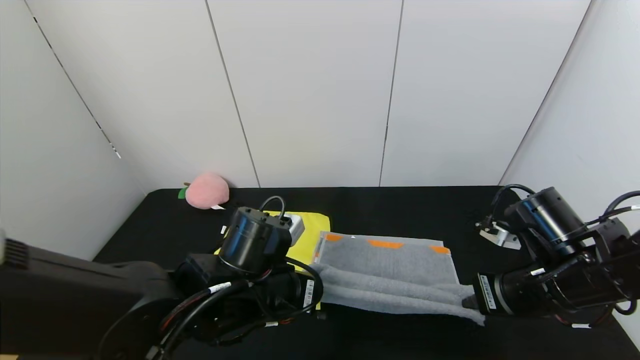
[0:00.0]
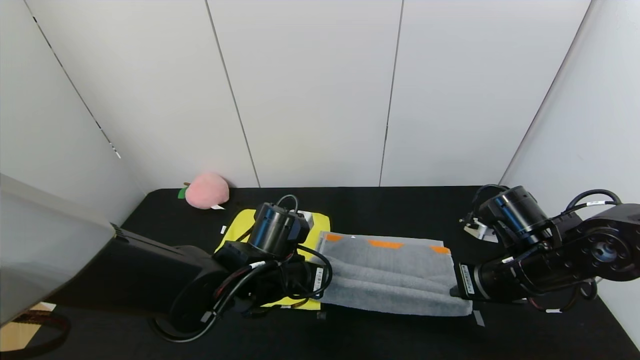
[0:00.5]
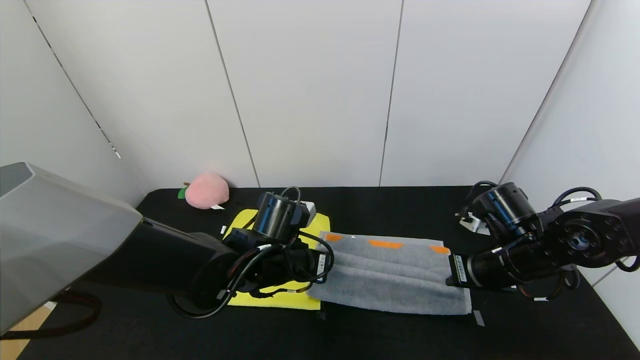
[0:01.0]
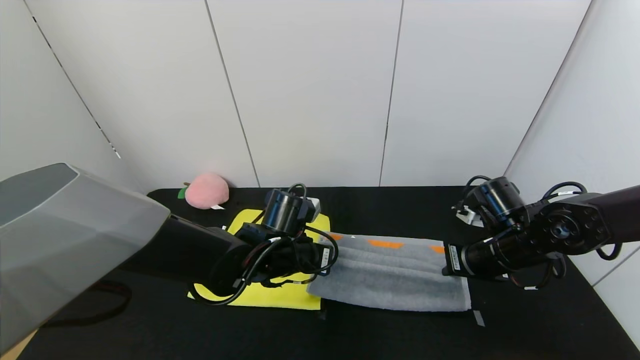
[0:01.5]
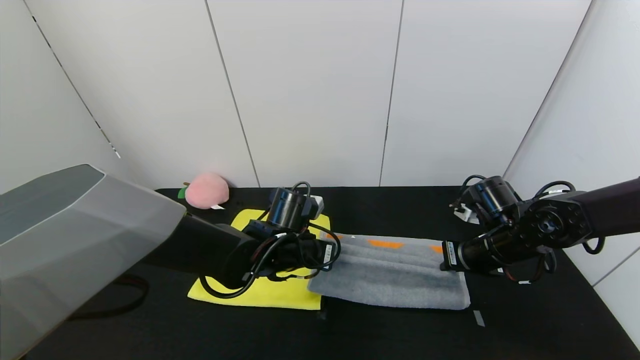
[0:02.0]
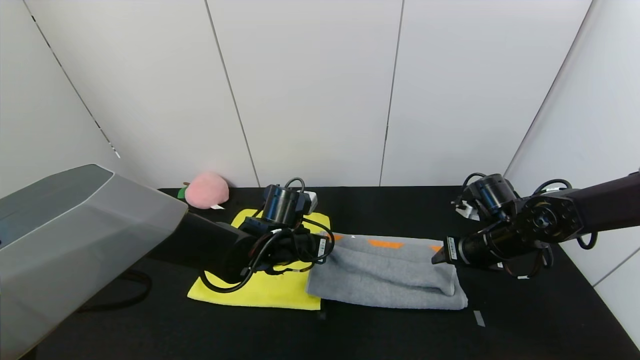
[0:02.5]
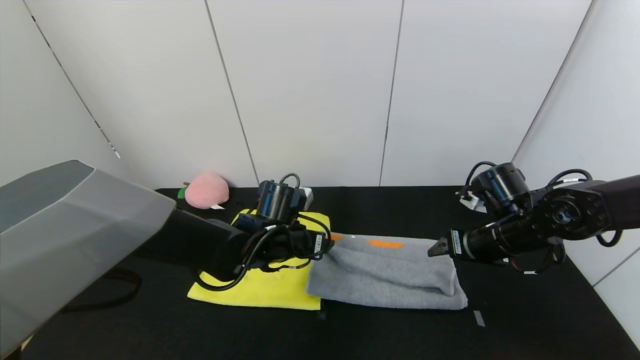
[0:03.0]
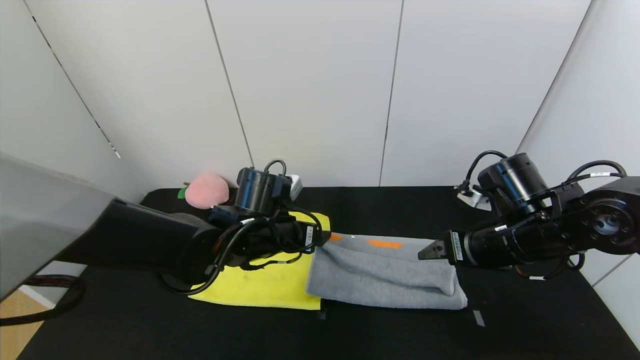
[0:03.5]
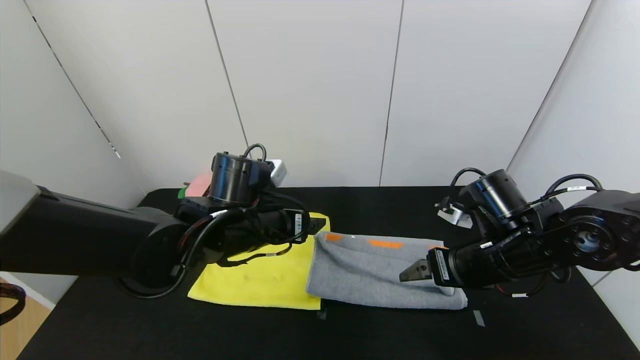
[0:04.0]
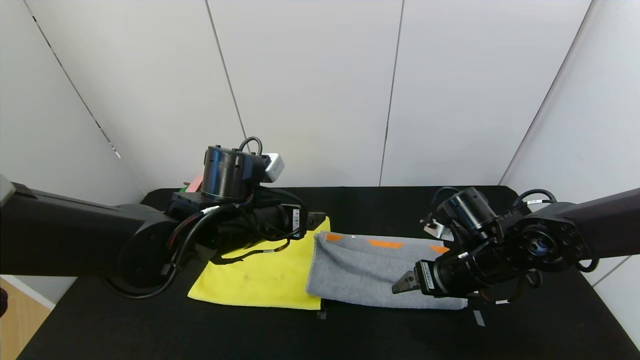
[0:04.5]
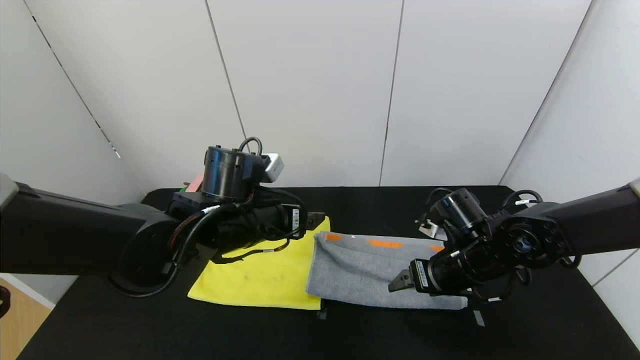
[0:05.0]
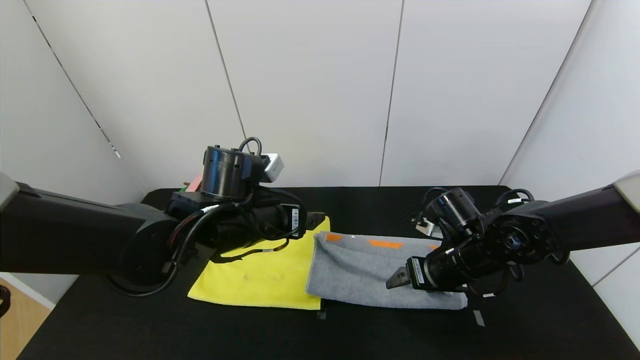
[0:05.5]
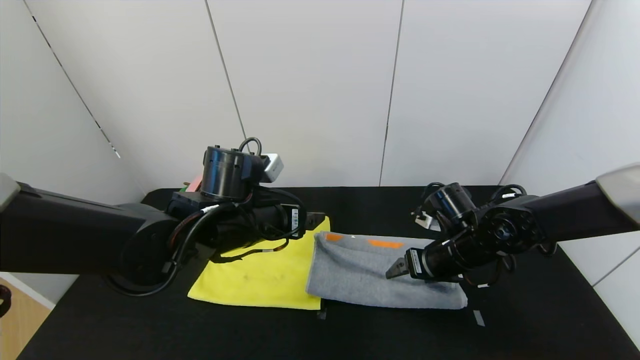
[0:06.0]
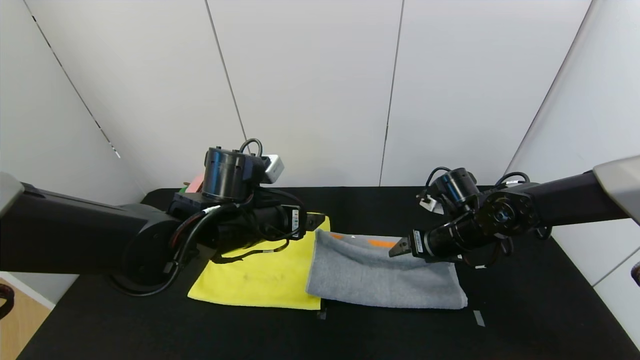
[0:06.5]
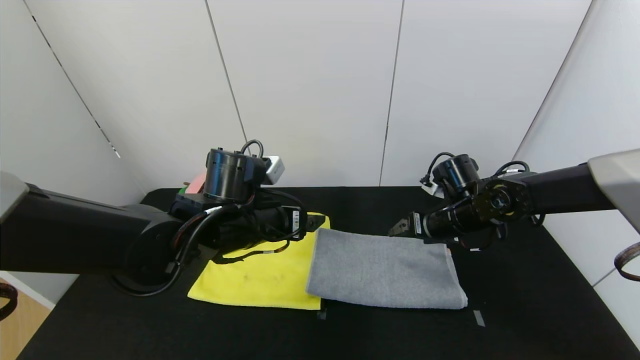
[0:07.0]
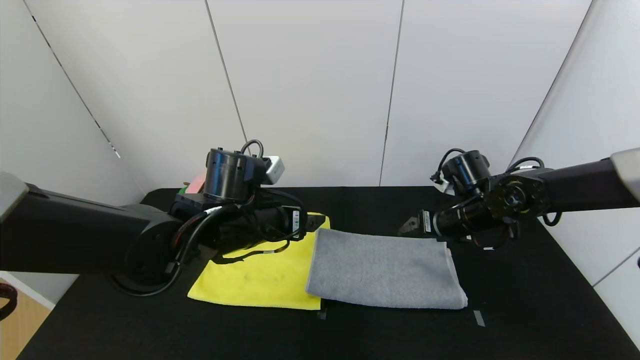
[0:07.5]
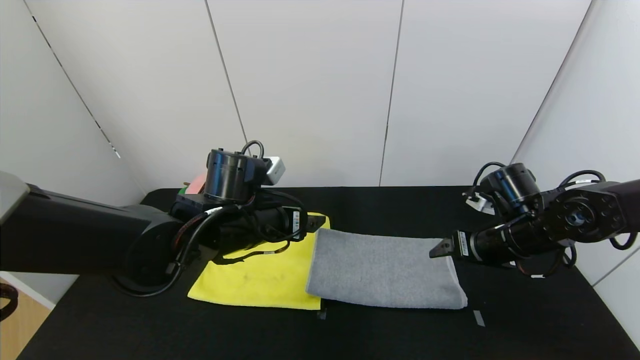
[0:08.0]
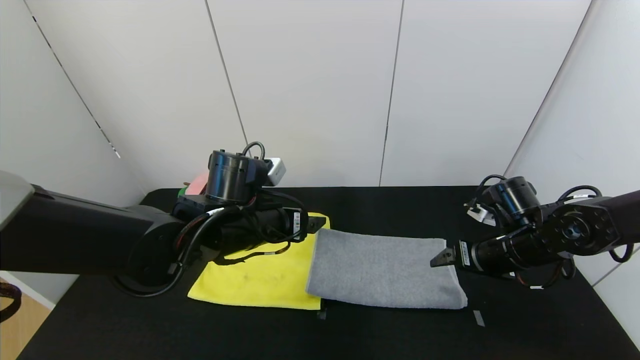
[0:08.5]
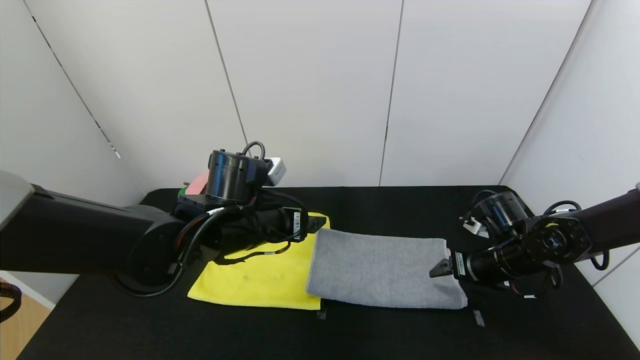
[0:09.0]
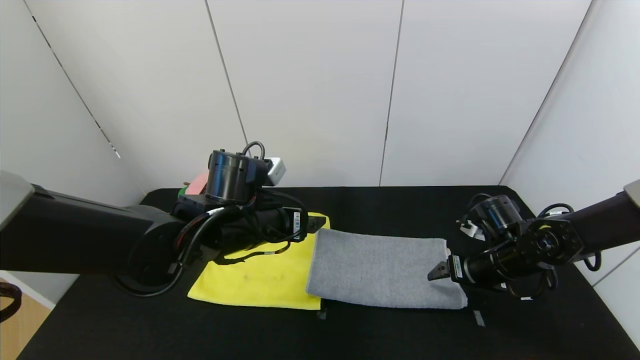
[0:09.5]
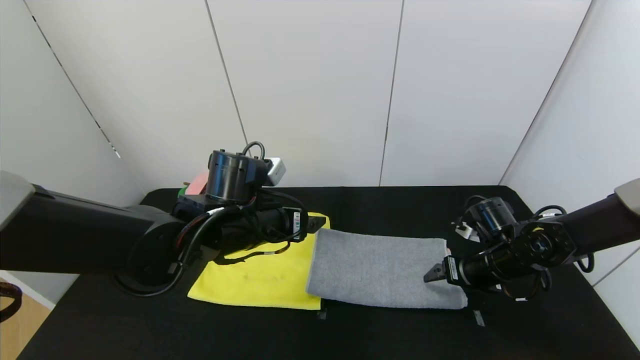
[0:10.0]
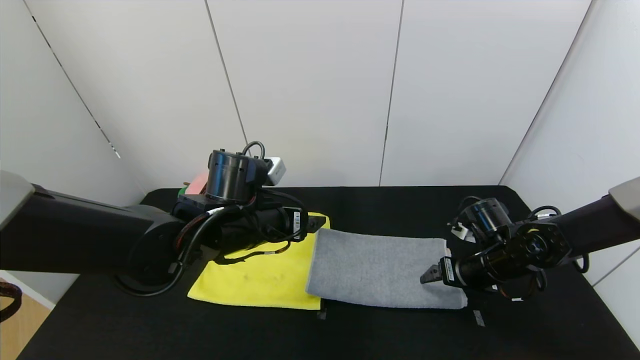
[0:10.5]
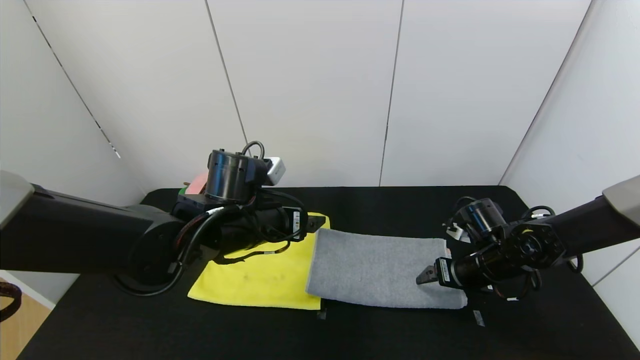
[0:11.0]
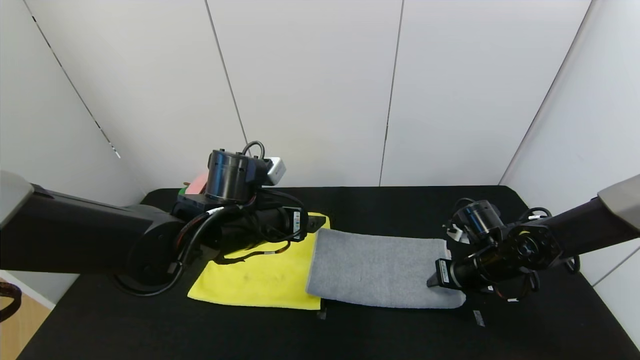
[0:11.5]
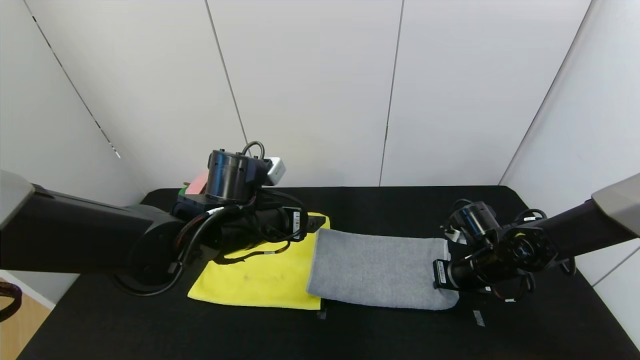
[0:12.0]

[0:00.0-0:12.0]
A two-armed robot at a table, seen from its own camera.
Task of the whole recording: Use the gripper to fold the yellow towel and grey towel in half twice,then put the yellow towel on the grey towel.
Step, 0:00.0 to 0:07.0: Fold the gray towel upwards with the left gripper.
Step, 0:00.0 to 0:07.0: Fold the gray towel upwards with the right gripper.
0:00.0 to 0:02.0: Both grippers travel together forward, about 10 cm.
0:02.0 to 0:04.0: The left gripper goes approximately 5 cm upward, and opens; the right gripper heads backward, covering some 5 cm, and opens.
0:04.0 to 0:06.0: The right gripper is displaced forward by about 5 cm.
0:06.0 to 0:08.0: The right gripper goes some 5 cm to the right.
0:08.0 to 0:10.0: The right gripper heads downward, covering roughly 5 cm.
0:10.0 to 0:12.0: The right gripper closes.

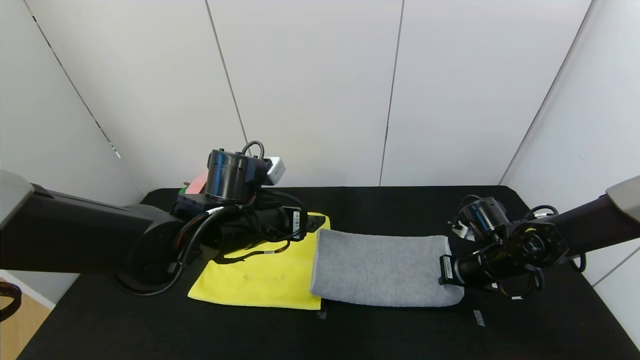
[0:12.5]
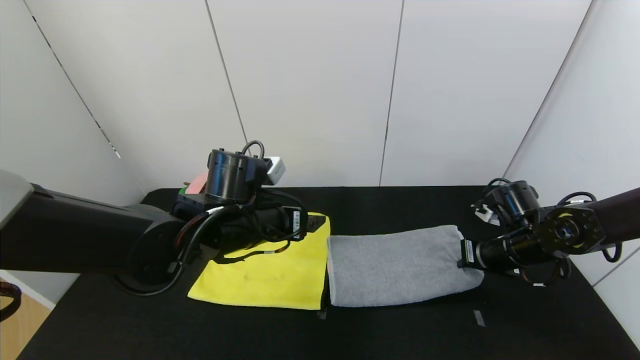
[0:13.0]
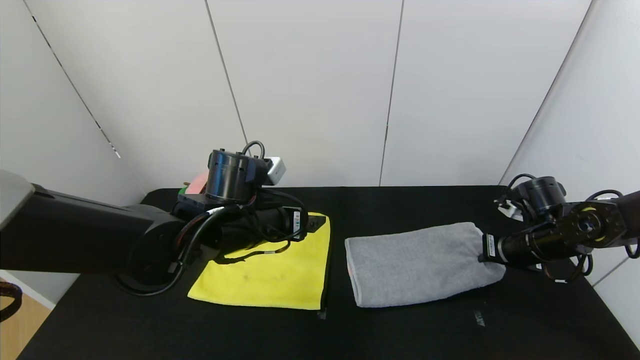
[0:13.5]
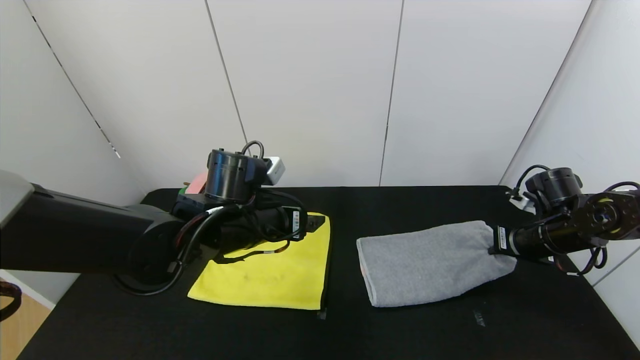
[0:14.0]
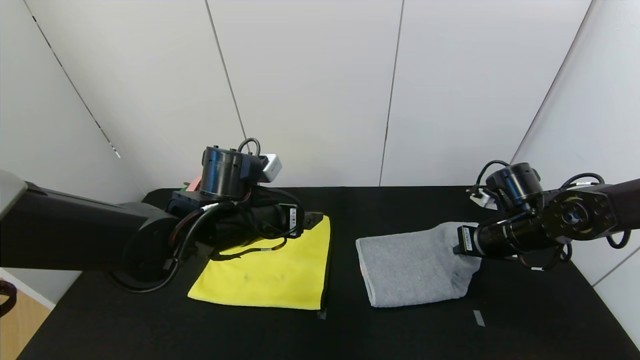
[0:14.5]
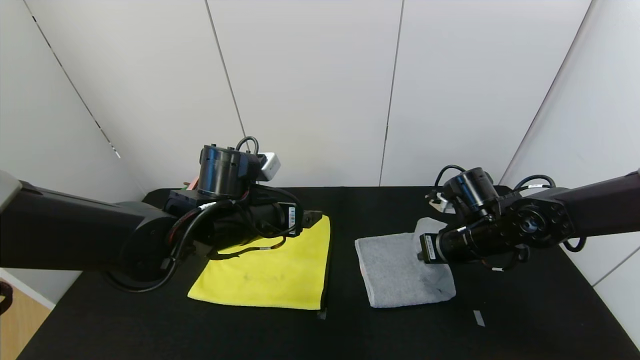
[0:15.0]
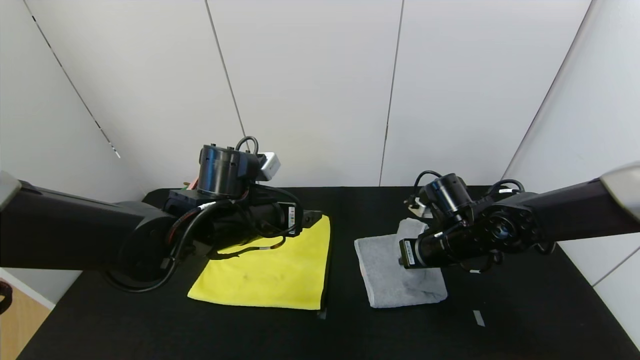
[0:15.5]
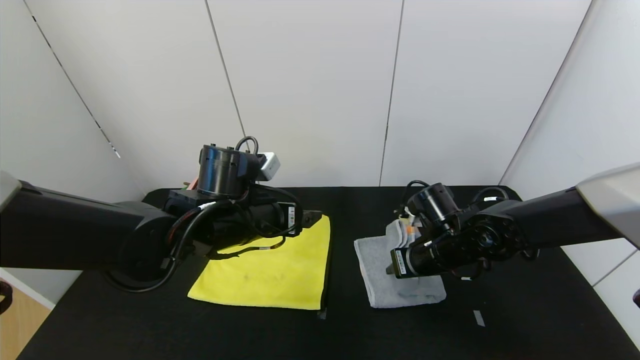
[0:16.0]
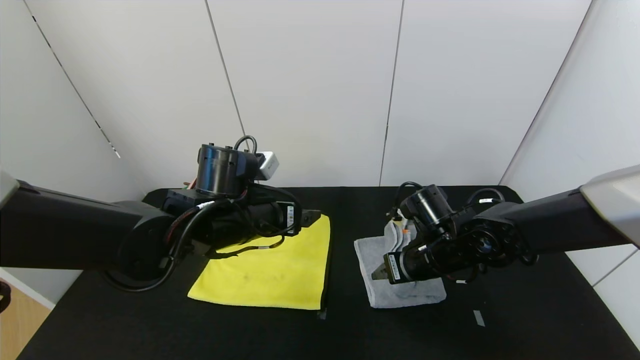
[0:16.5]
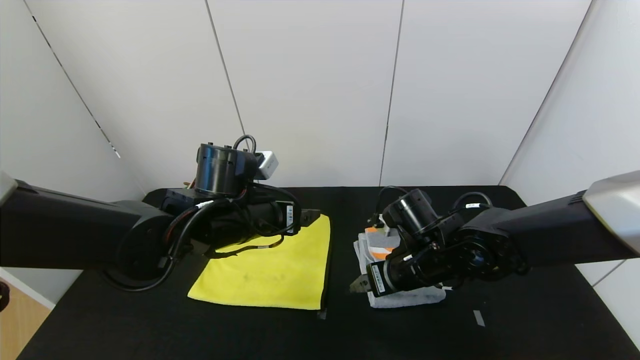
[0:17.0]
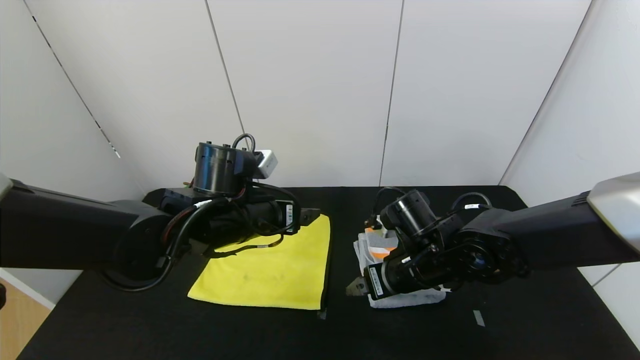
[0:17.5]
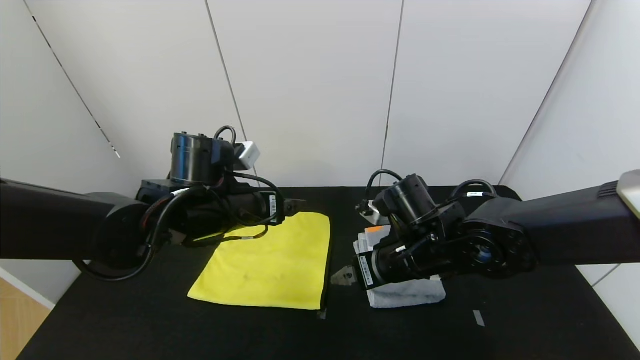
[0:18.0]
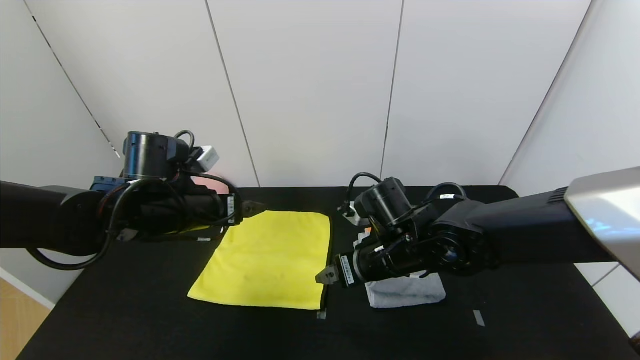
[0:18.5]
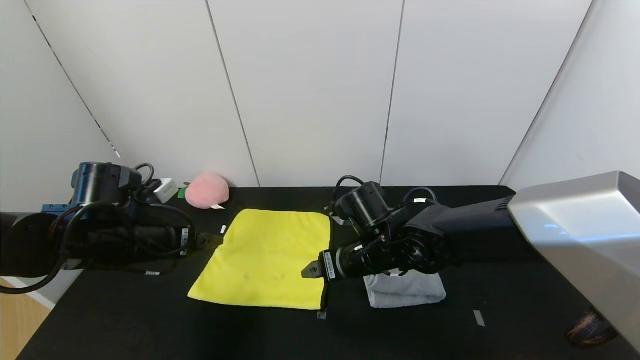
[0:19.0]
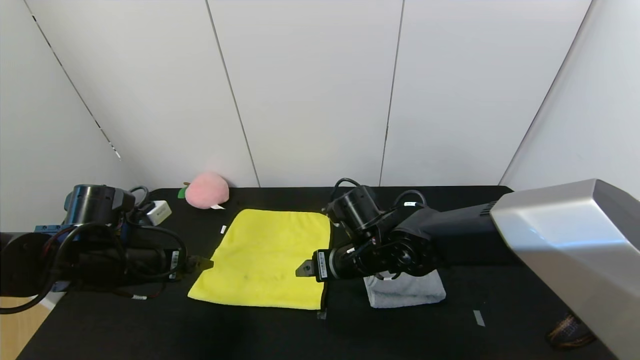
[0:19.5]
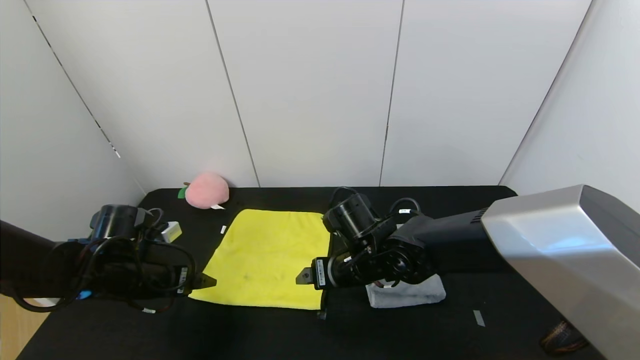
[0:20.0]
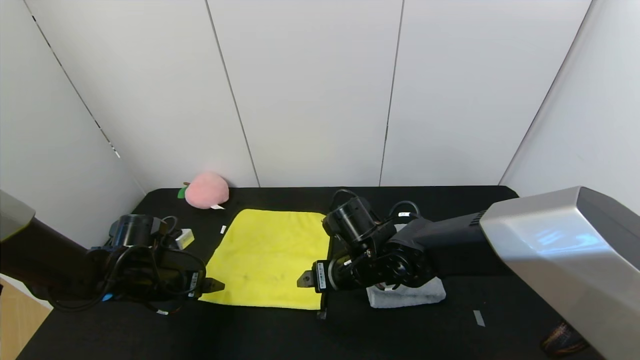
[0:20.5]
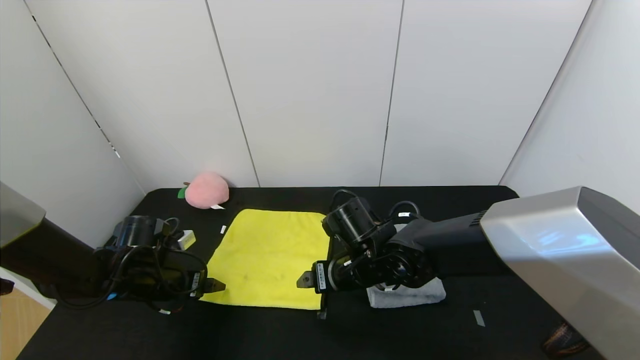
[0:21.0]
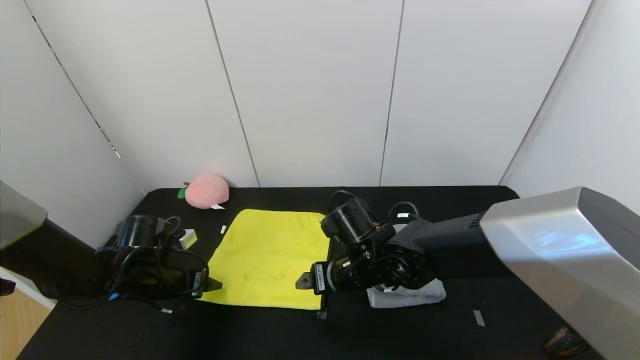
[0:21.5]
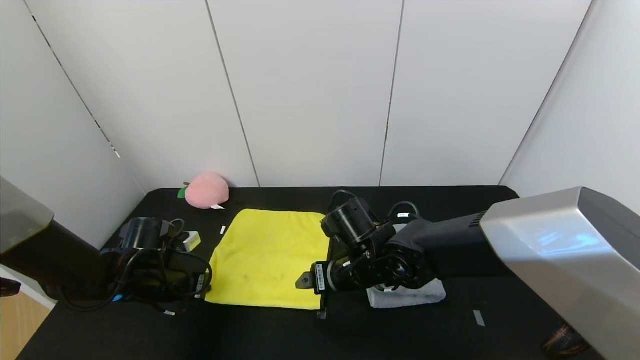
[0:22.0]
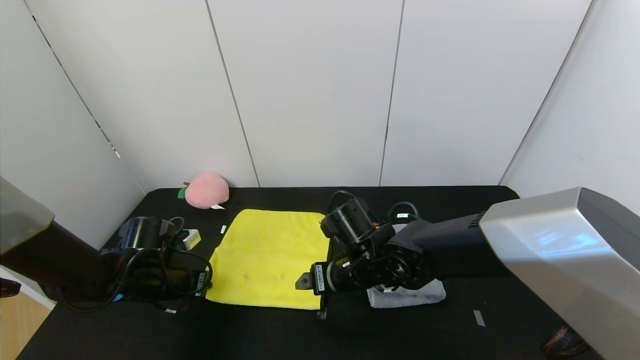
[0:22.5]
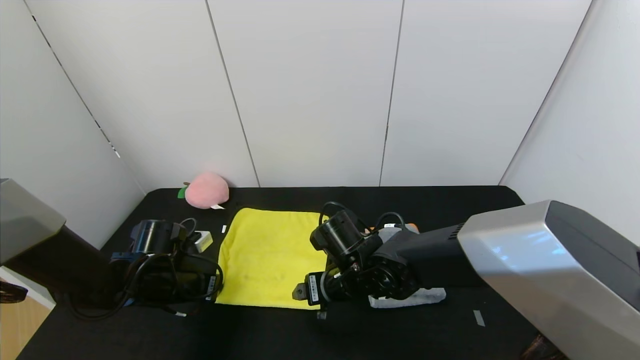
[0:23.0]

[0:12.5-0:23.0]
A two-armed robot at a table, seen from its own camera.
Task of the whole recording: Use the gripper to fold the yellow towel and grey towel in half twice,then put the yellow towel on the grey towel.
Step, 0:12.5 to 0:16.5: Fold the gray towel from right to left with right gripper.
0:12.5 to 0:14.5: The right gripper shifts approximately 5 cm upward, and reaches approximately 10 cm to the right, then returns.
0:14.5 to 0:16.5: The right gripper moves to the left, about 15 cm, and opens.
0:16.5 to 0:19.0: The left gripper heads to the left, covering about 15 cm. The right gripper shifts roughly 10 cm to the left.
0:19.0 to 0:21.0: The left gripper moves downward, roughly 10 cm.
0:21.0 to 0:23.0: The left gripper closes.
